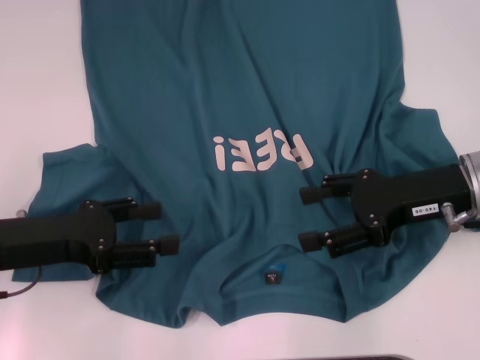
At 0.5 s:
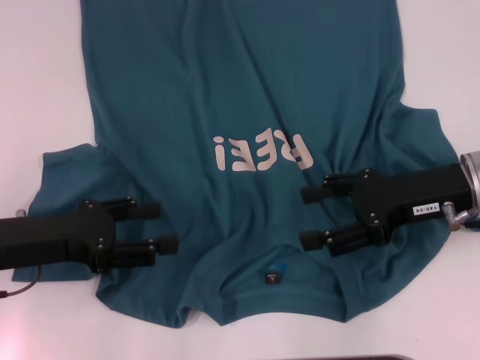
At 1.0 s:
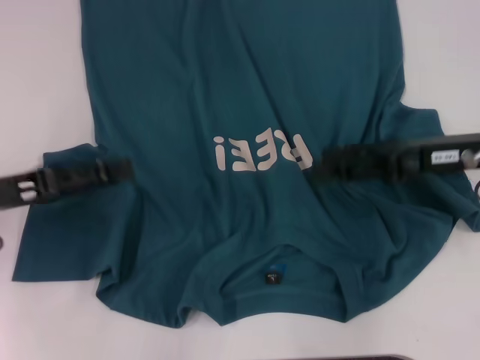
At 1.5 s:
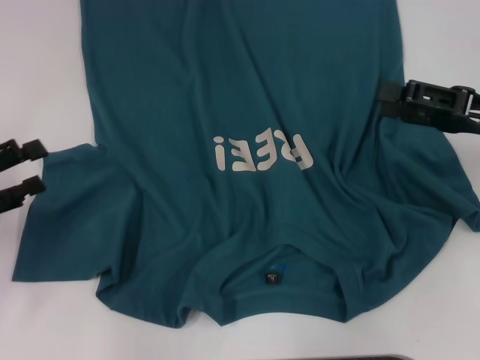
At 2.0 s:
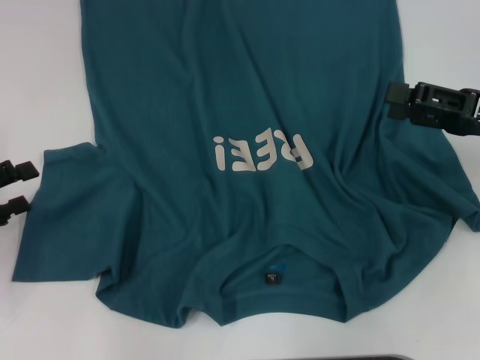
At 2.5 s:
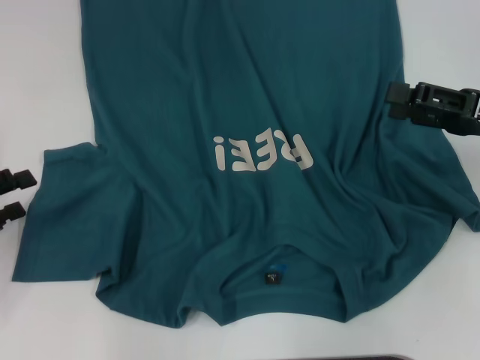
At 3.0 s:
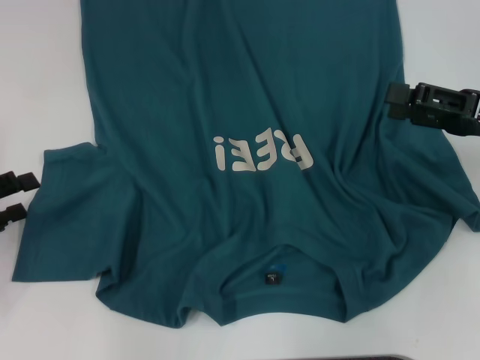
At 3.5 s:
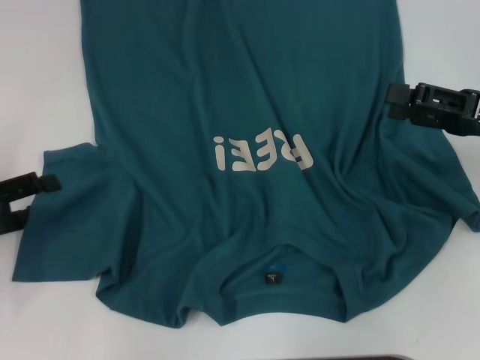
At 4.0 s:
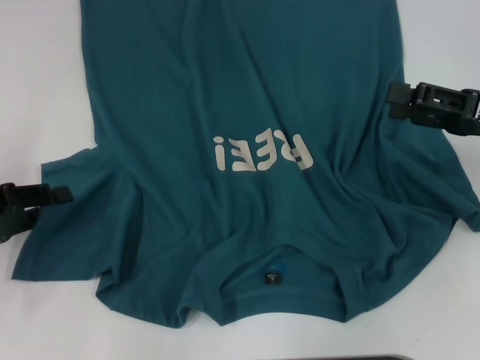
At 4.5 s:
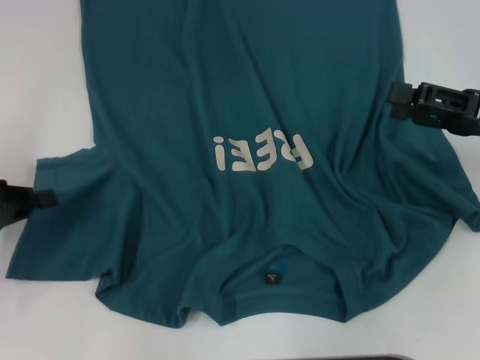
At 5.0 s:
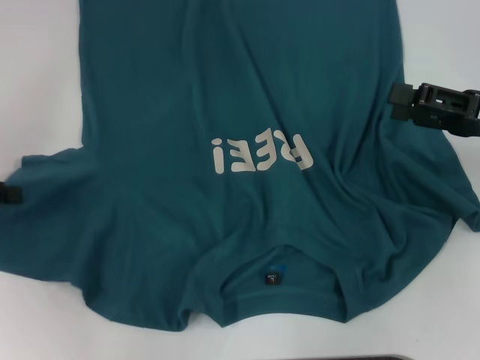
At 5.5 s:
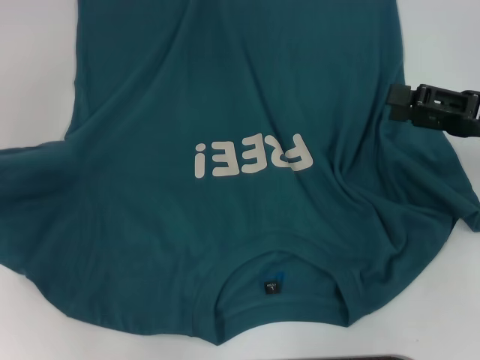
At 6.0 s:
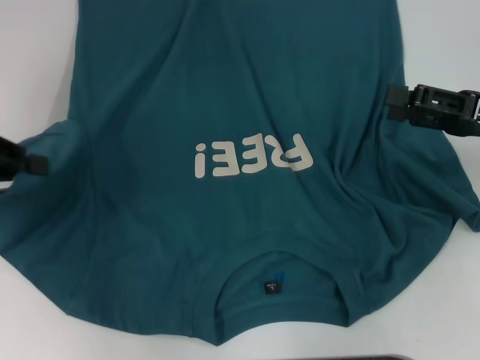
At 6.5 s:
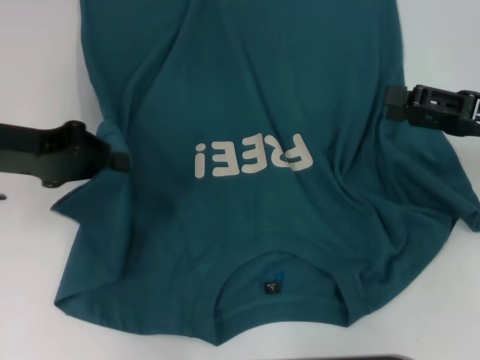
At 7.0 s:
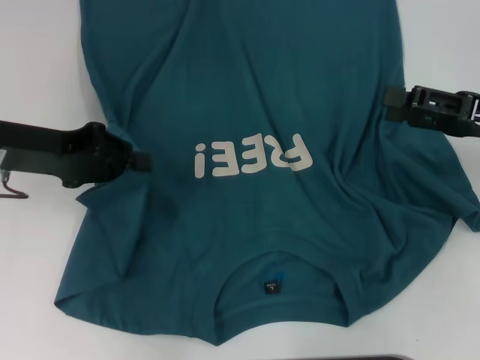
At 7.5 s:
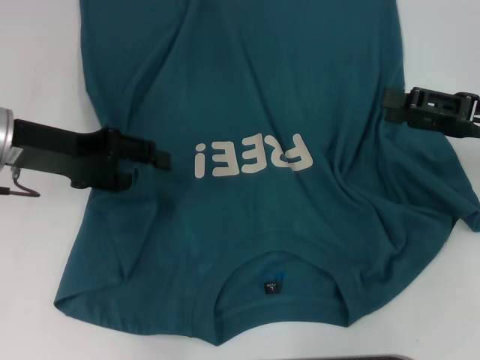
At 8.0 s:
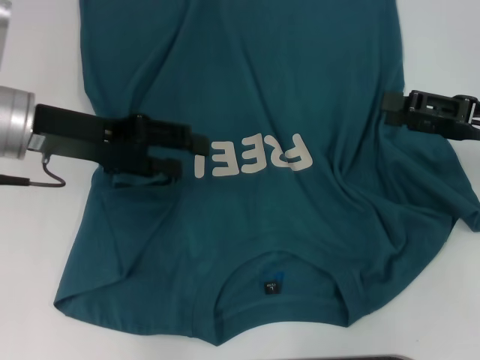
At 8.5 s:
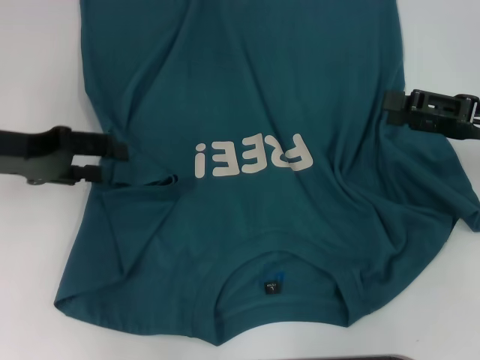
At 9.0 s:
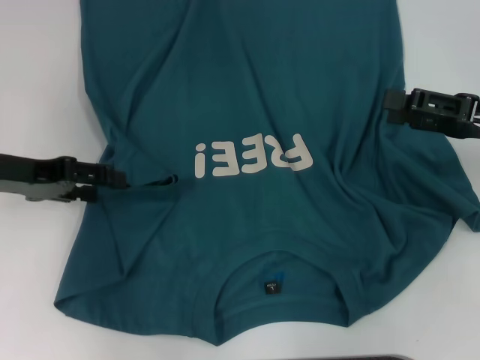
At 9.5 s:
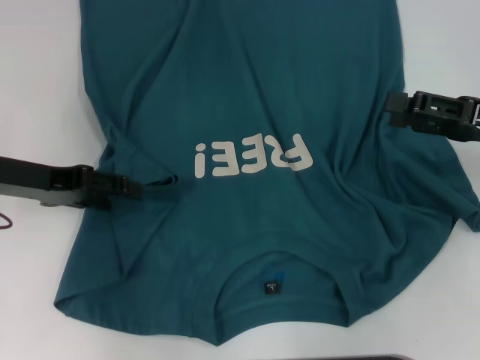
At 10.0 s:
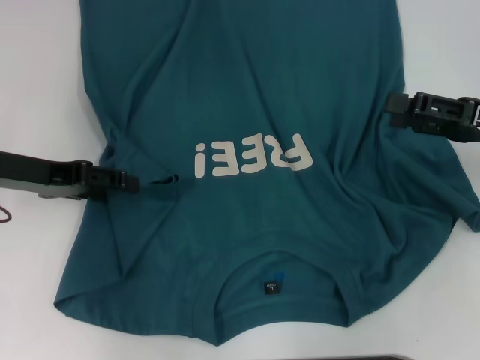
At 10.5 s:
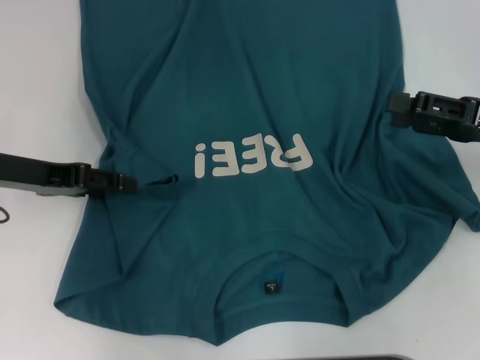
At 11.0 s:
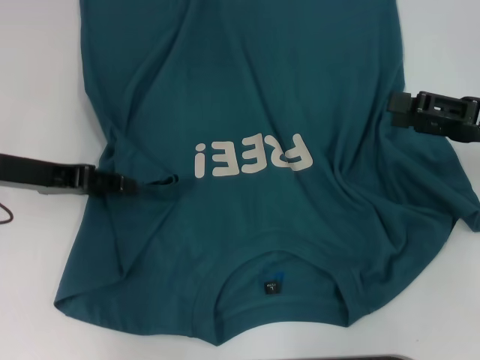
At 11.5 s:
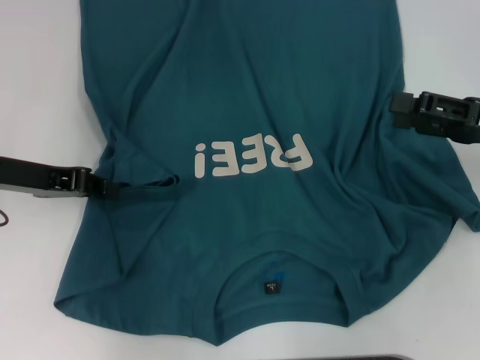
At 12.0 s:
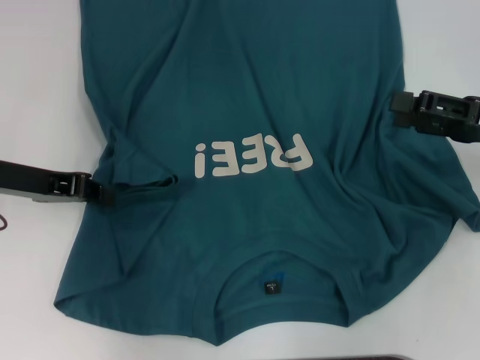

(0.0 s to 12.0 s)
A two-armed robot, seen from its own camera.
0.0 s - 2.0 s: The right gripper heads to the right, covering some 10 cm, while the left gripper is displaced to the left by roughly 10 cm.
2.0 s - 4.0 s: There are only small adjustments of the grippers.
4.0 s - 6.0 s: The left gripper goes approximately 10 cm upward and forward, and closes its fingers.
6.0 s - 8.0 s: The left gripper goes roughly 10 cm to the right, and opens up.
8.0 s - 10.0 s: The left gripper shifts by roughly 5 cm.
10.0 s - 12.0 s: The left gripper closes its fingers.

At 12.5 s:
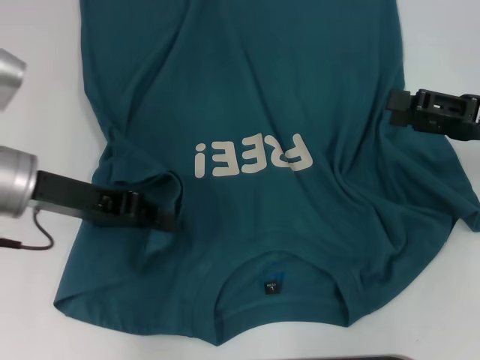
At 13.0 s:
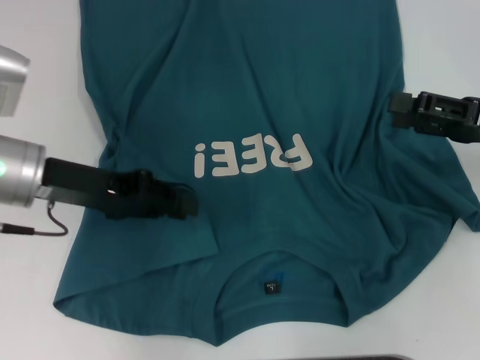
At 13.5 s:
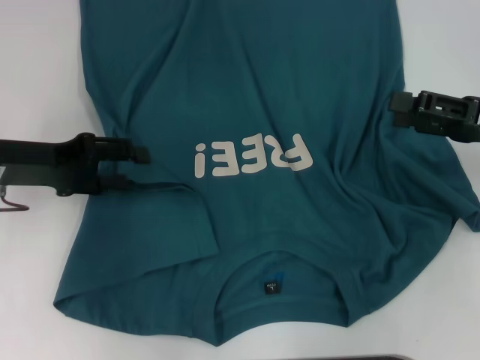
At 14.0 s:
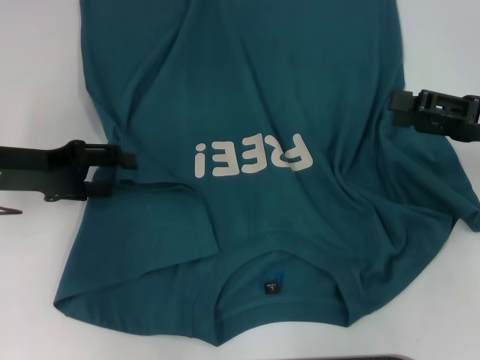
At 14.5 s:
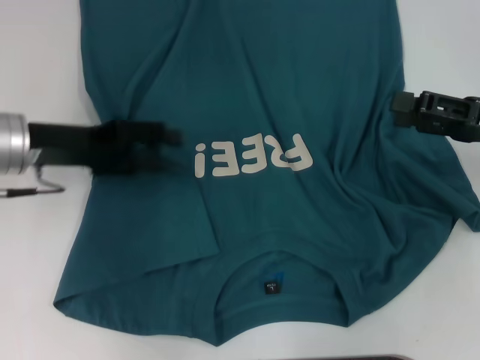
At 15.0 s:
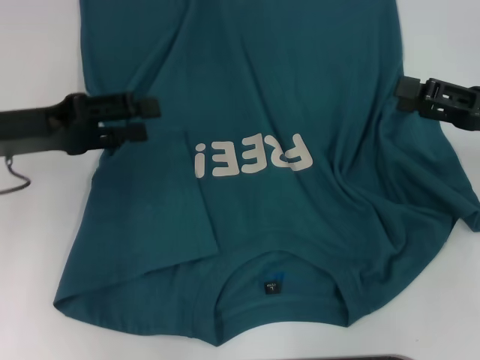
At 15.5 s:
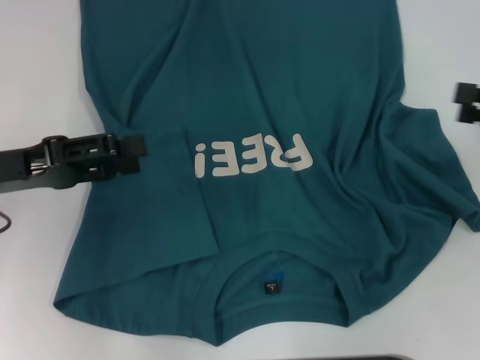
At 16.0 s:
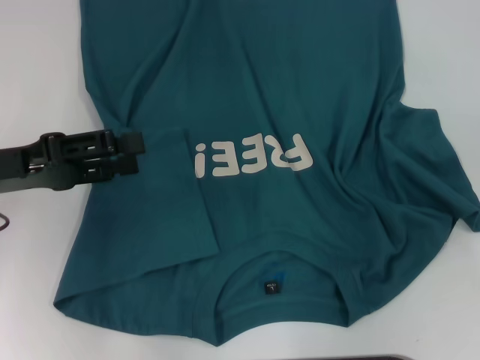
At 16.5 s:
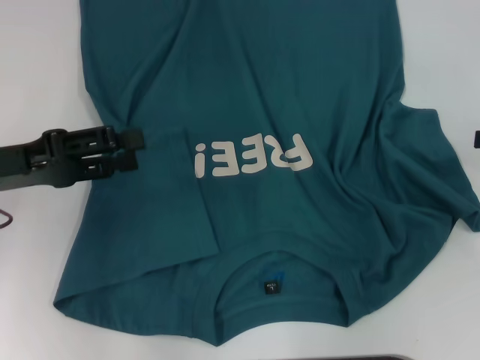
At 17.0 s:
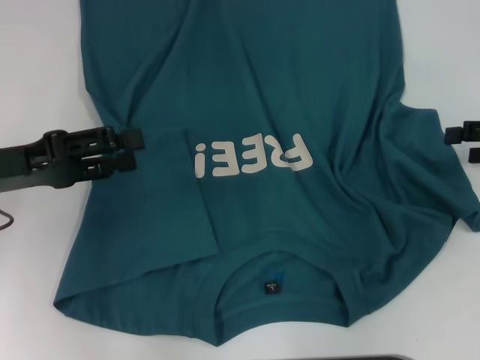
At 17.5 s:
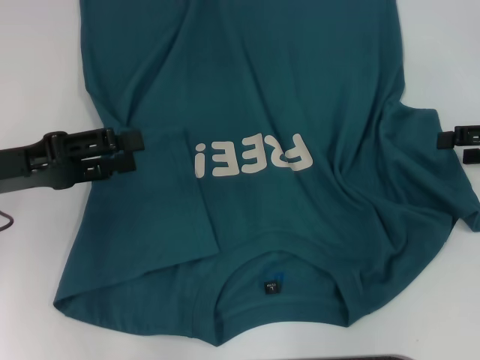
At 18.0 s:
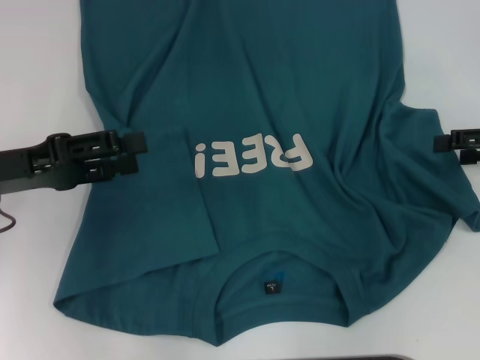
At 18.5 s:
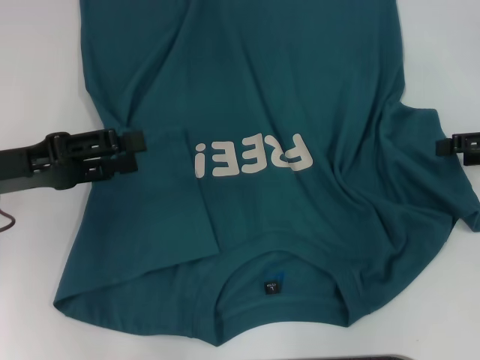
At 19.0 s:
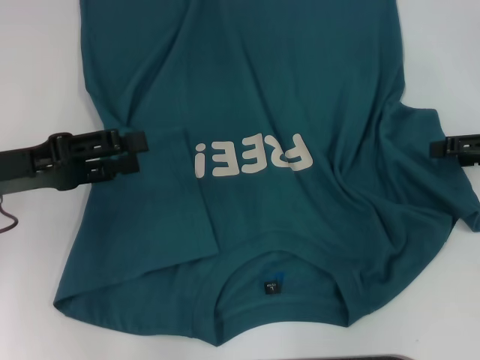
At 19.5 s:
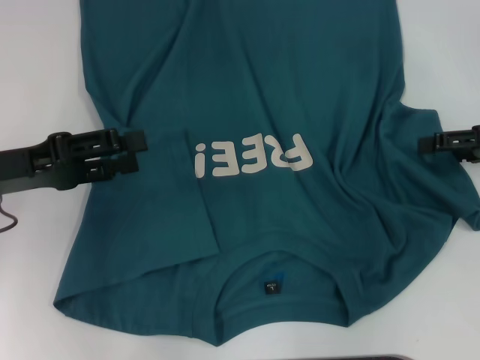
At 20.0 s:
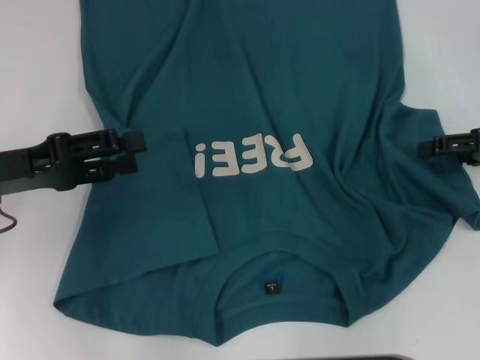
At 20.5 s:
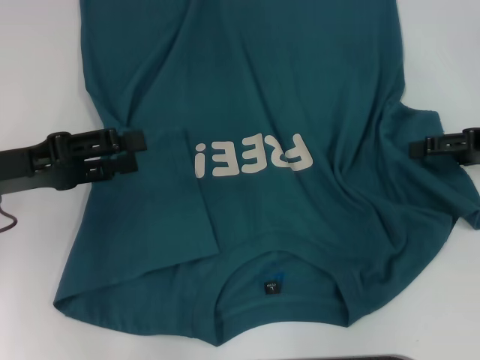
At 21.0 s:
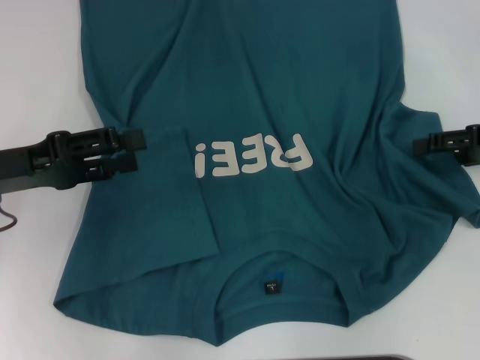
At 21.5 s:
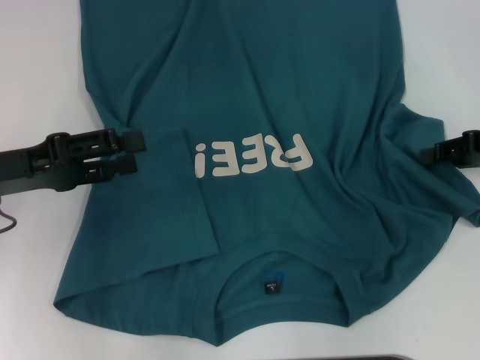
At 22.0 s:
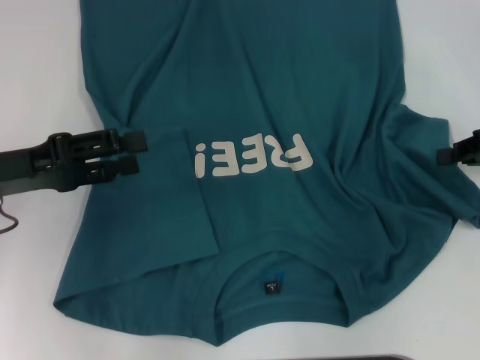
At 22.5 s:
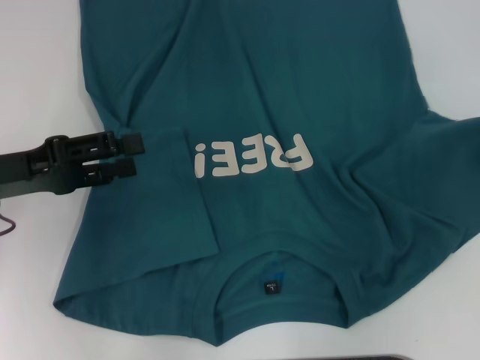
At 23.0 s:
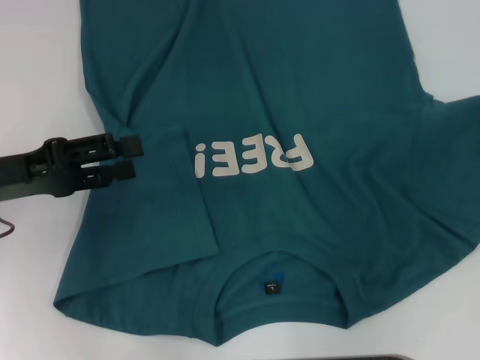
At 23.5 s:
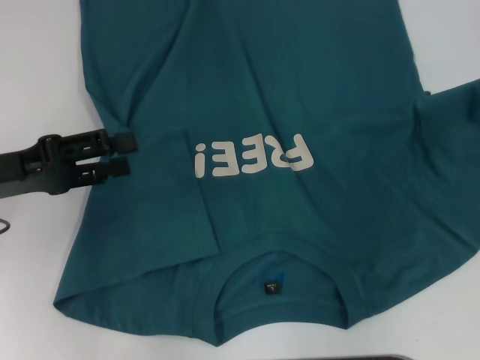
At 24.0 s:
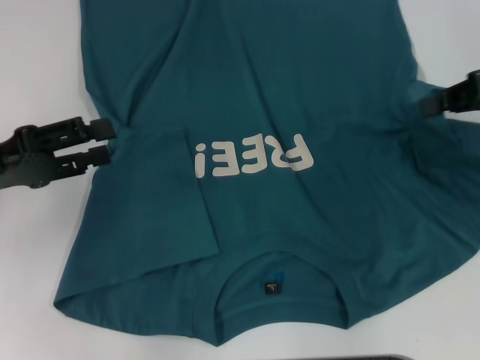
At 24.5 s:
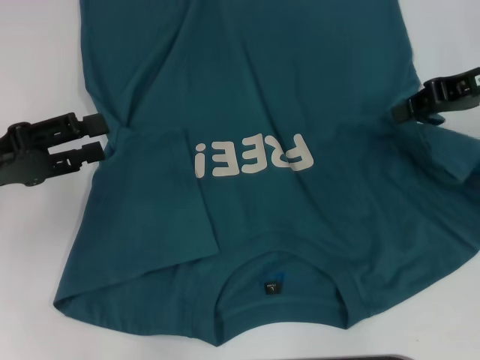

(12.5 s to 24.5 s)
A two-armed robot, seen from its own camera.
Step, 12.5 s - 14.5 s: Fold the bottom left sleeve with your left hand.
12.5 s - 14.5 s: The left gripper opens.
14.5 s - 16.5 s: The left gripper goes some 5 cm backward. The right gripper moves to the right, approximately 10 cm.
16.5 s - 18.5 s: There are only small adjustments of the grippers.
20.5 s - 22.5 s: The right gripper moves to the right, some 5 cm, and closes its fingers.
22.5 s - 24.5 s: The right gripper shifts about 15 cm to the left and forward.

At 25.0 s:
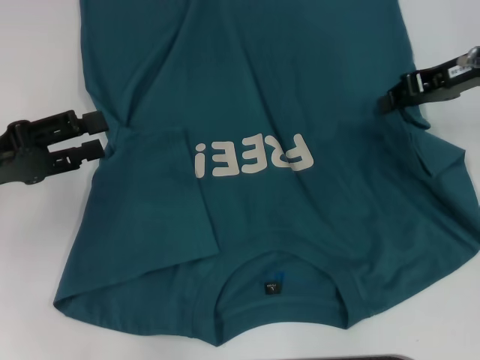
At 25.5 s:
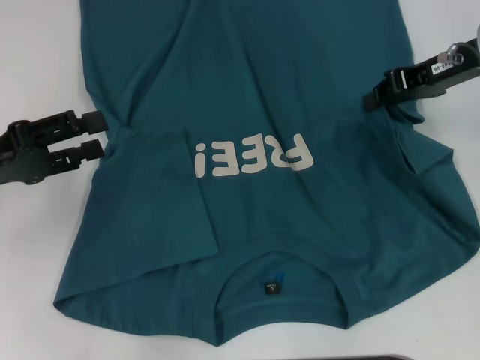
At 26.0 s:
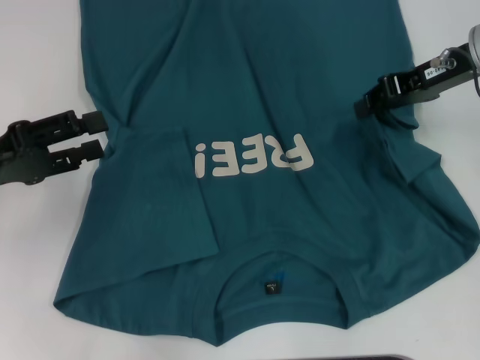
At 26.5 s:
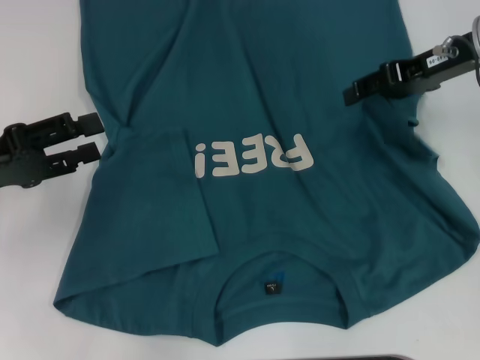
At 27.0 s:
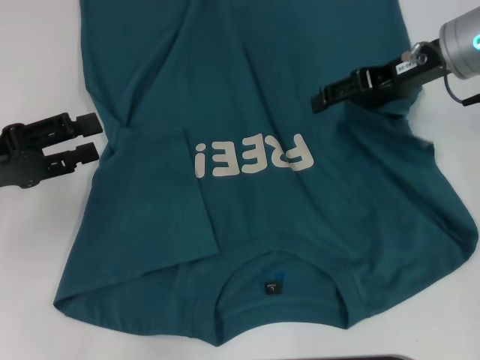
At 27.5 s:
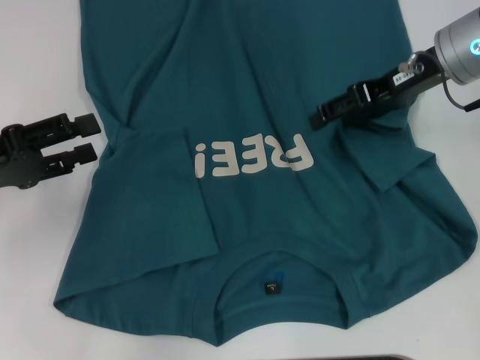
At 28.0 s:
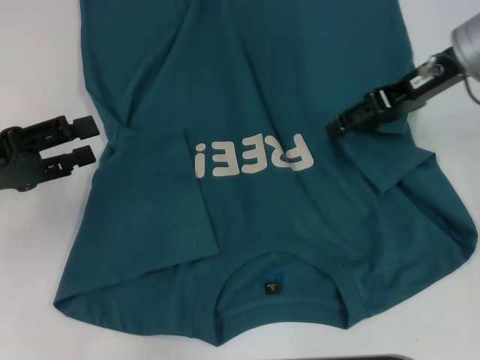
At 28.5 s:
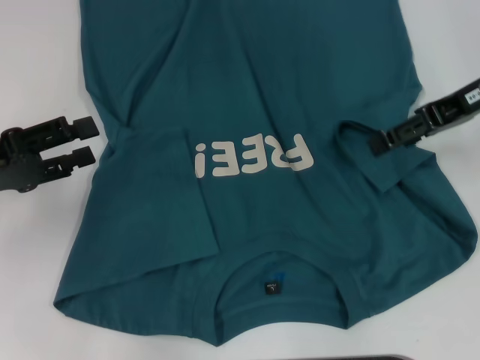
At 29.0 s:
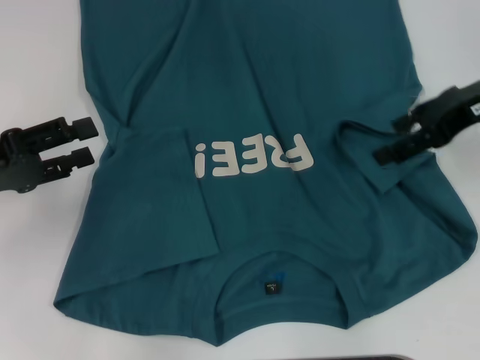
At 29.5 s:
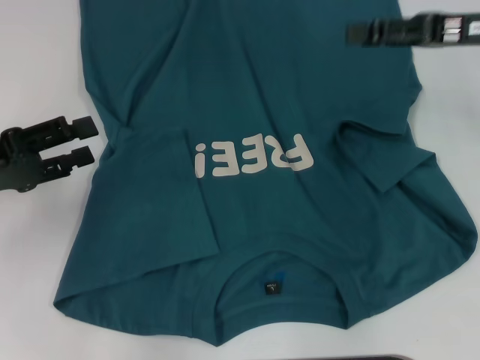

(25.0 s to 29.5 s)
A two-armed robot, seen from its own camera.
25.0 s - 27.0 s: The right gripper opens.
27.0 s - 29.5 s: The right gripper travels to the right by about 5 cm.
